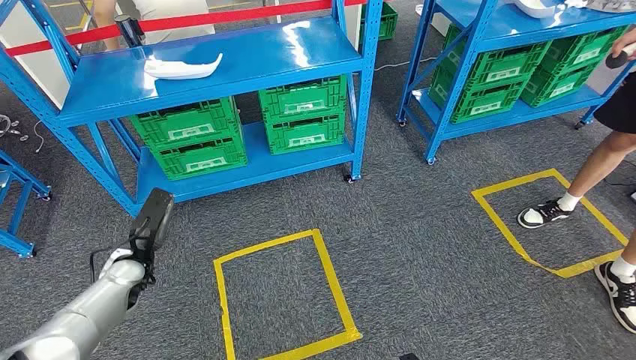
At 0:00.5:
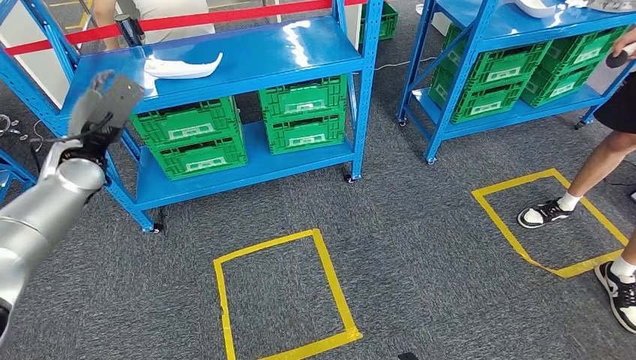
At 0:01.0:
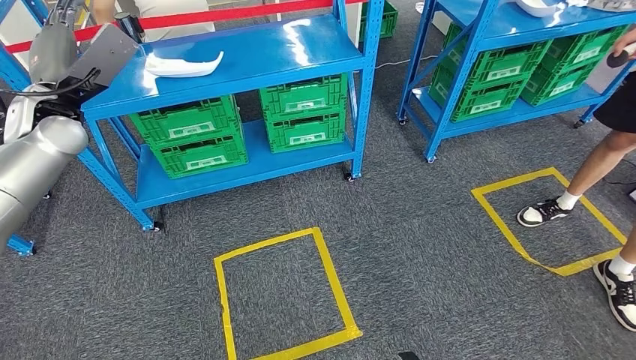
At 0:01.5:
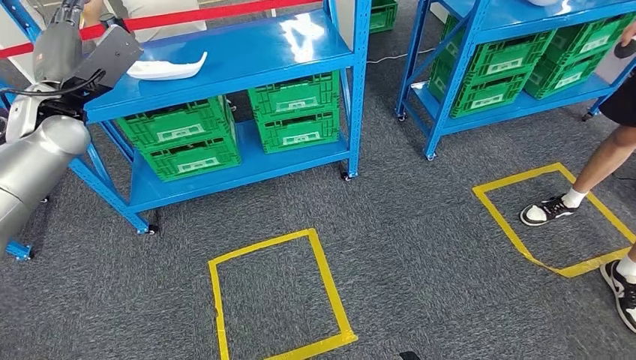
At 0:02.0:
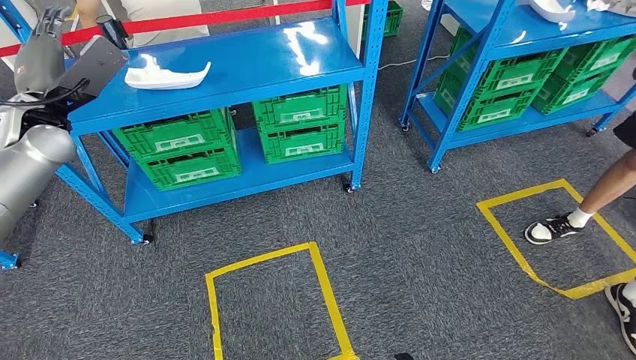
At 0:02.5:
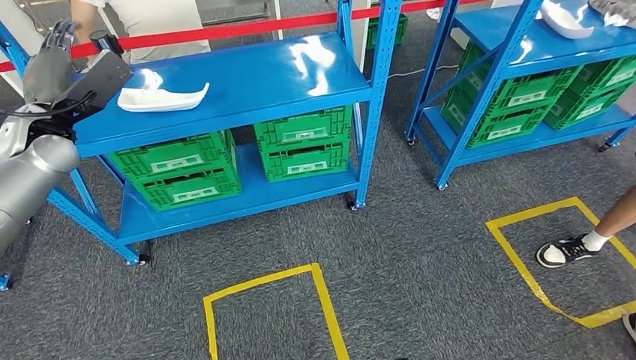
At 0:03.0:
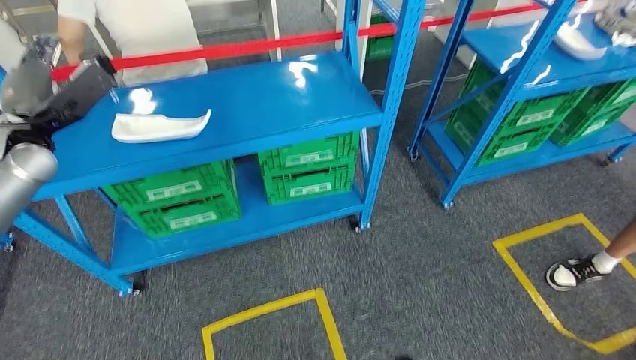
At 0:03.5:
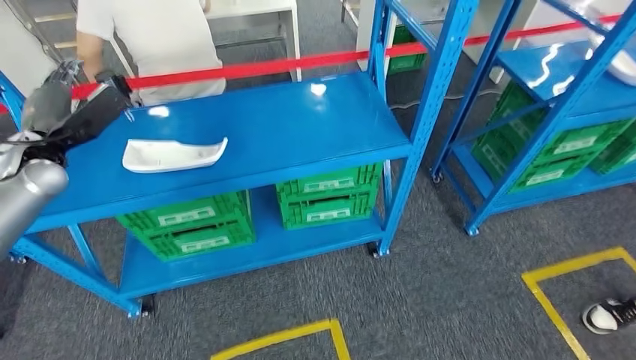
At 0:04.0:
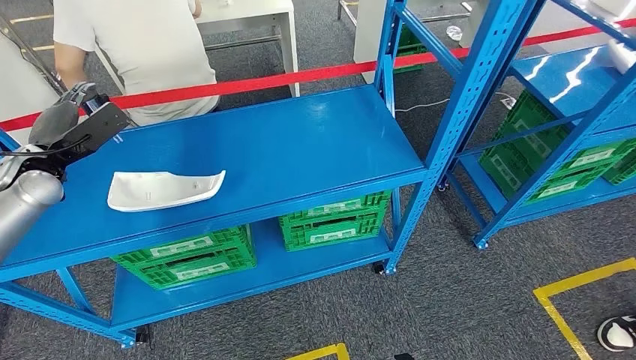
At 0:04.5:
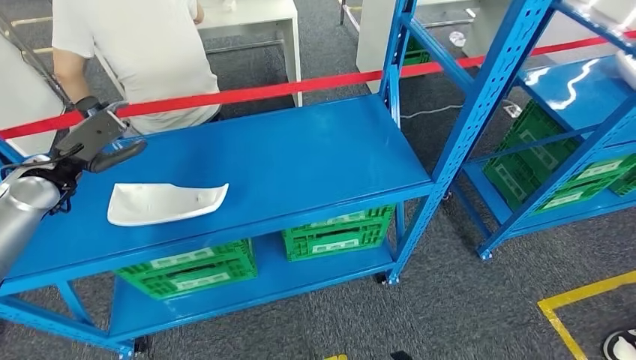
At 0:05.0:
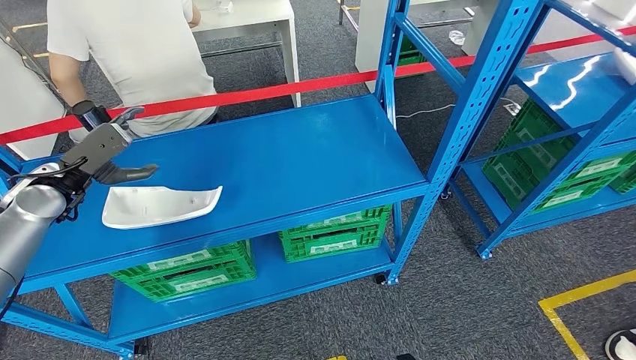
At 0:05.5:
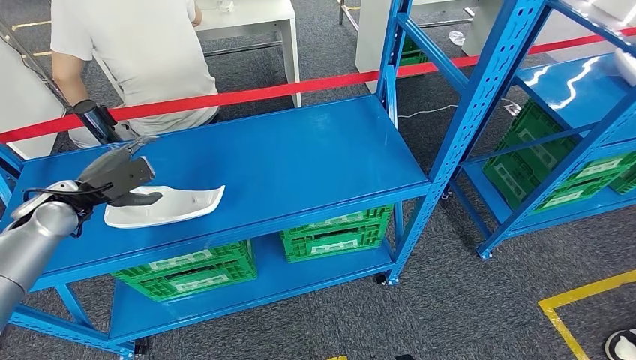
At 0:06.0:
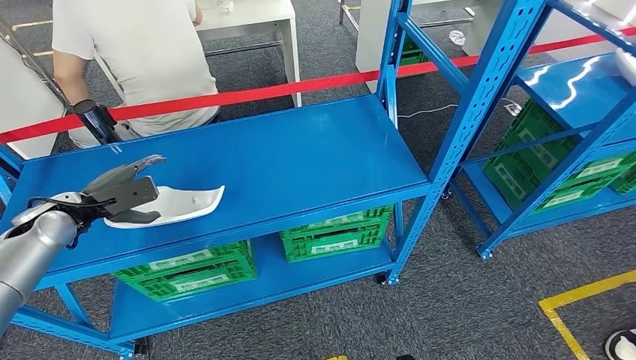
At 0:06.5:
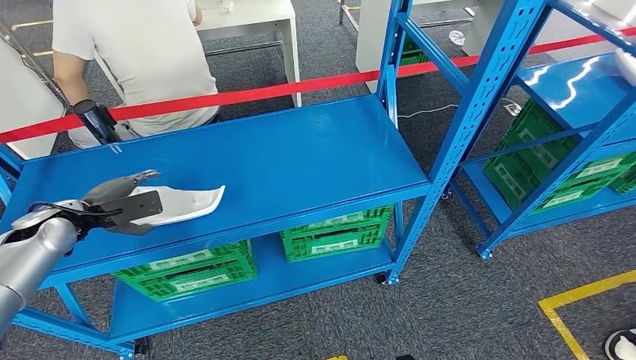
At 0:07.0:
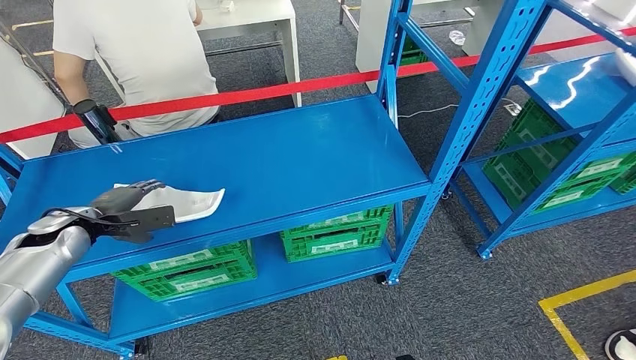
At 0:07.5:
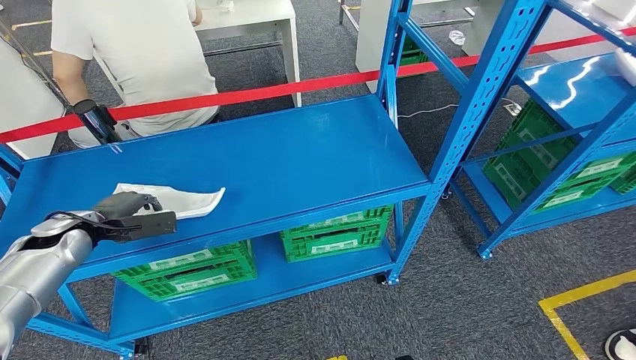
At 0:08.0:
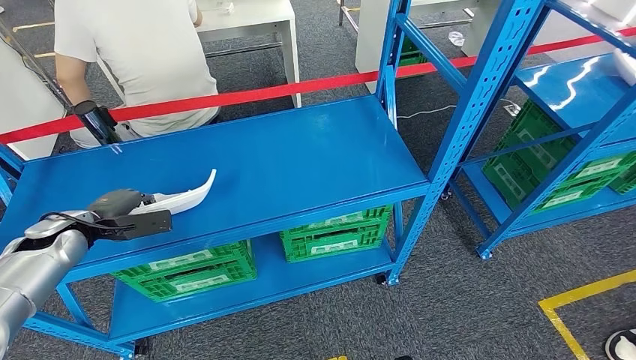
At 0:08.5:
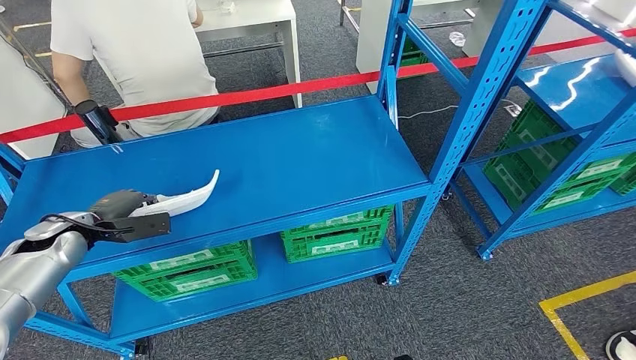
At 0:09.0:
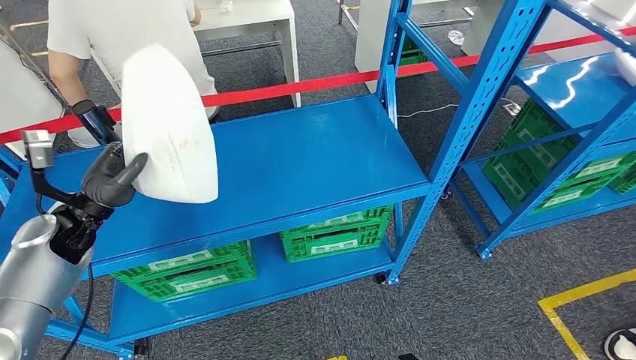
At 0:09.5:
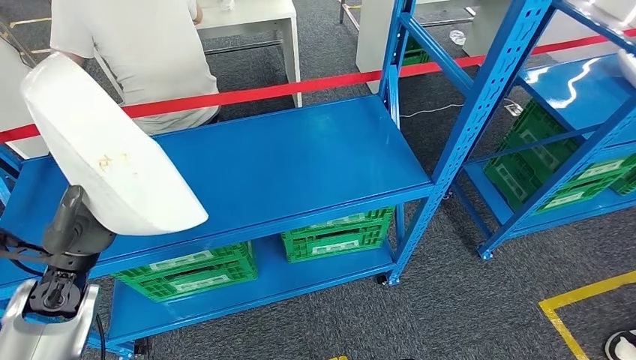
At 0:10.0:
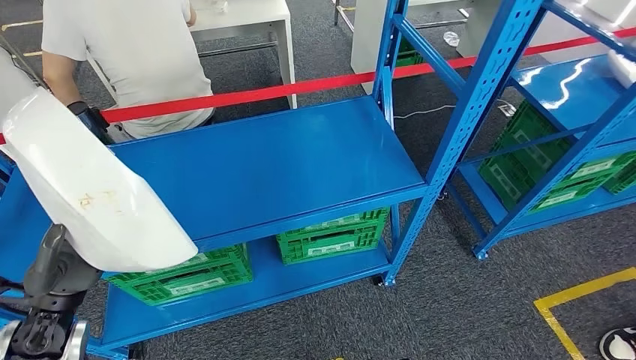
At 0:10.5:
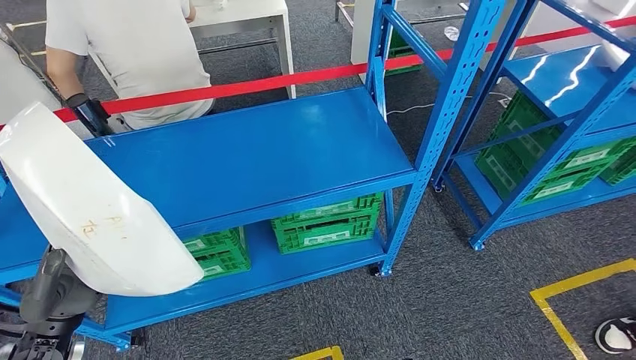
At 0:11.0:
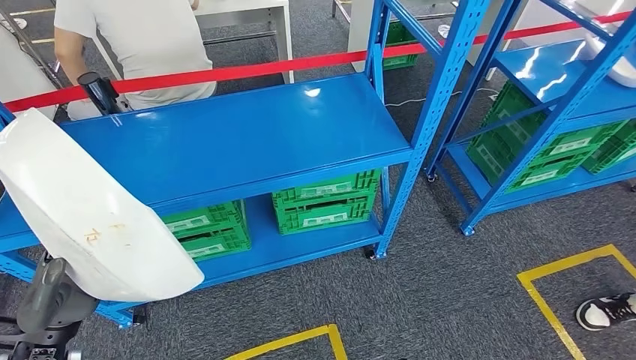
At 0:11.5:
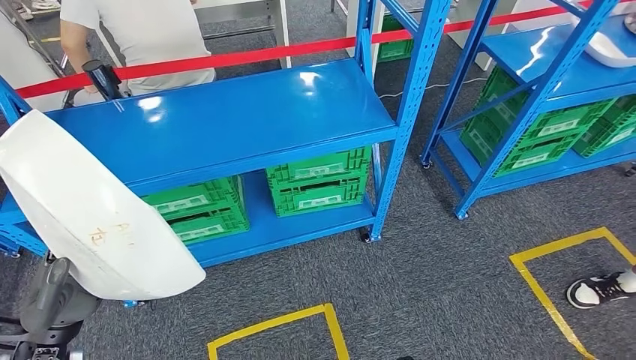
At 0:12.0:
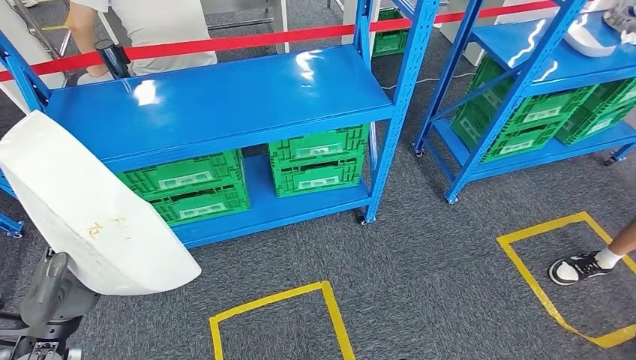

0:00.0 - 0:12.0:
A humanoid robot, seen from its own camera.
Step, 0:00.0 - 0:10.5: Take small components from the rack.

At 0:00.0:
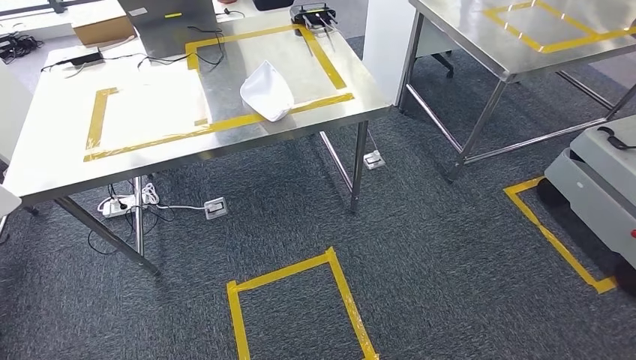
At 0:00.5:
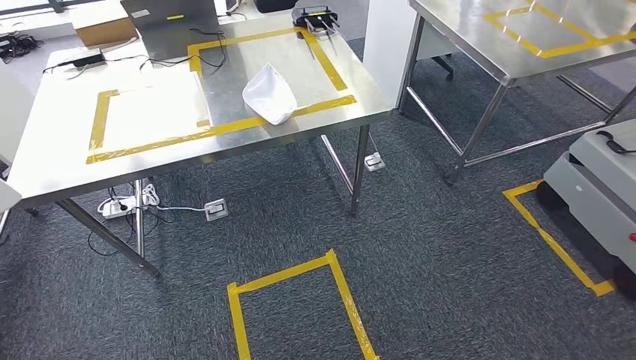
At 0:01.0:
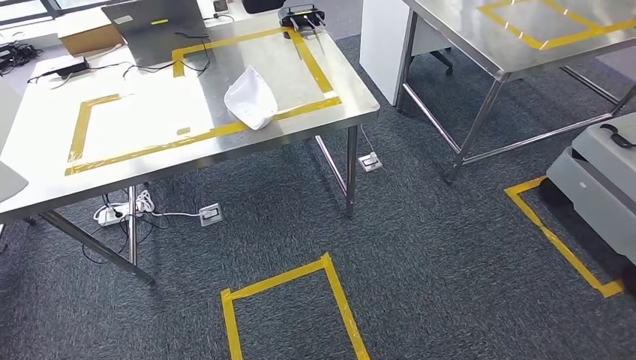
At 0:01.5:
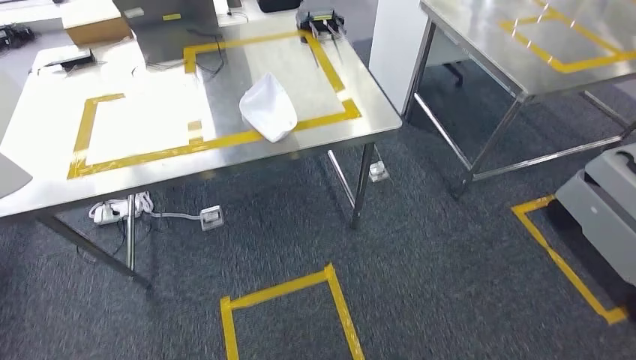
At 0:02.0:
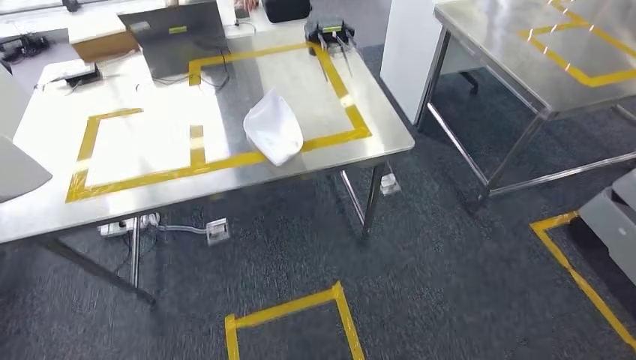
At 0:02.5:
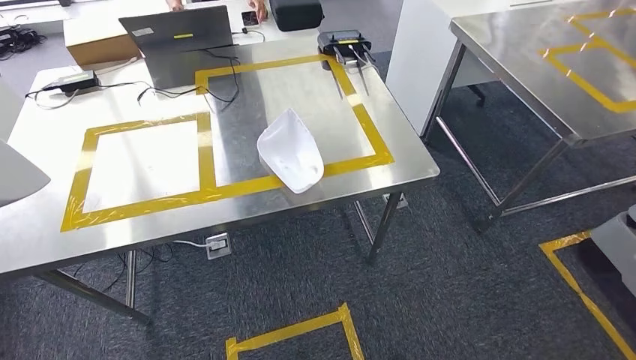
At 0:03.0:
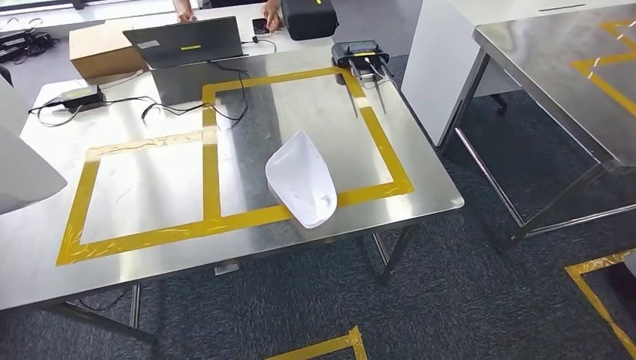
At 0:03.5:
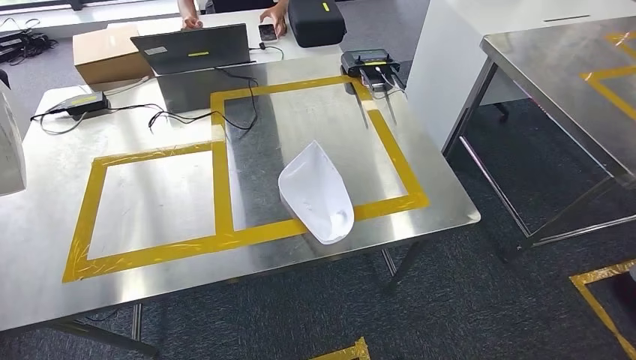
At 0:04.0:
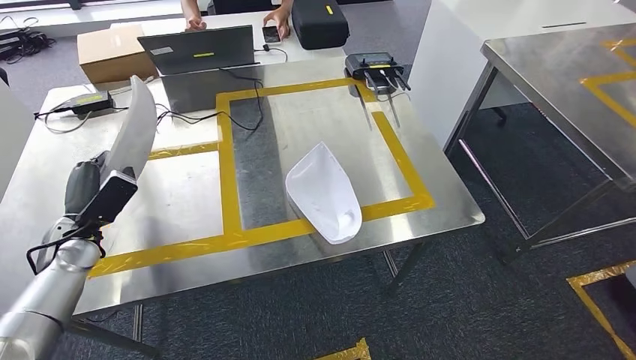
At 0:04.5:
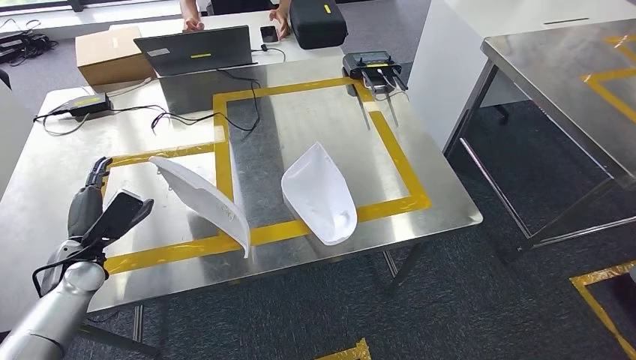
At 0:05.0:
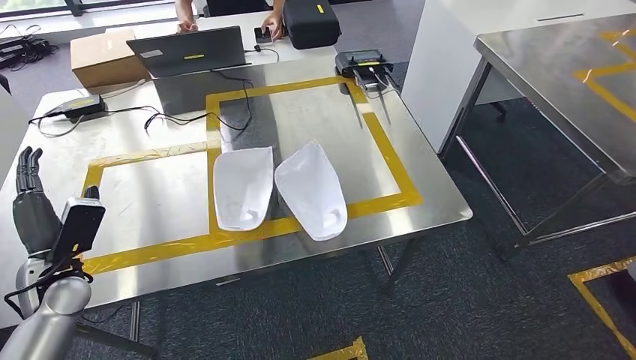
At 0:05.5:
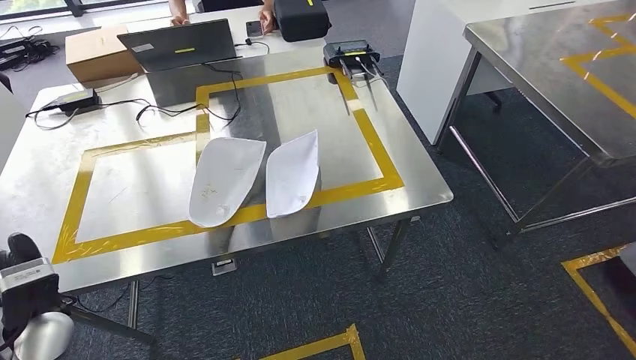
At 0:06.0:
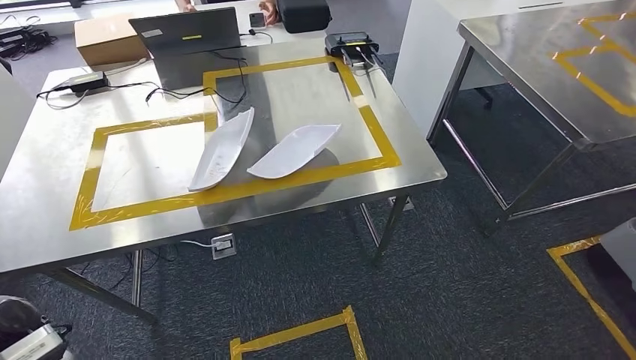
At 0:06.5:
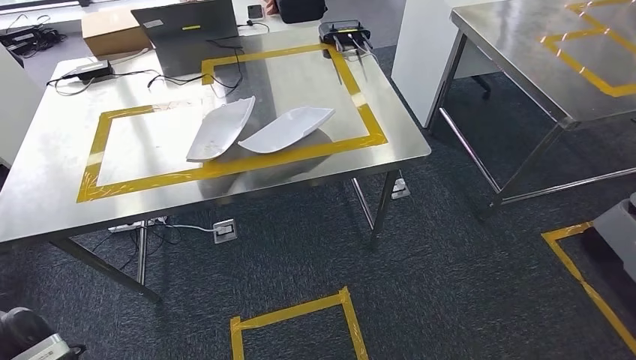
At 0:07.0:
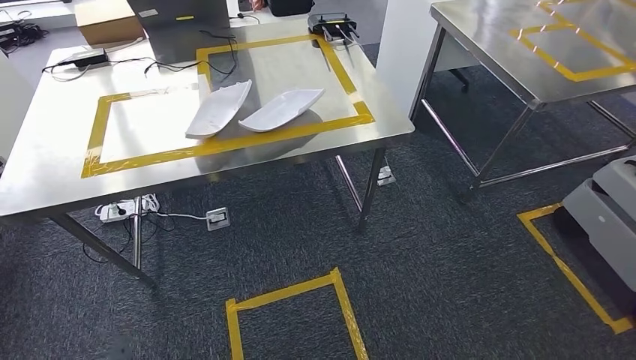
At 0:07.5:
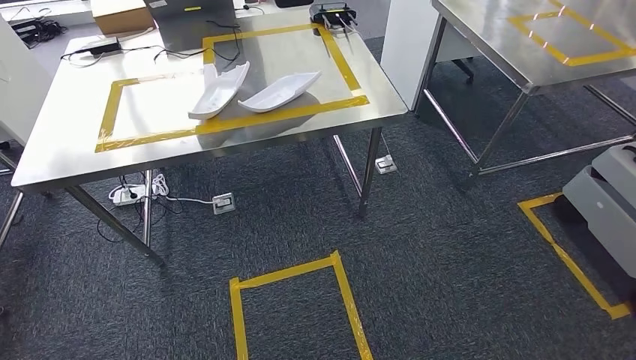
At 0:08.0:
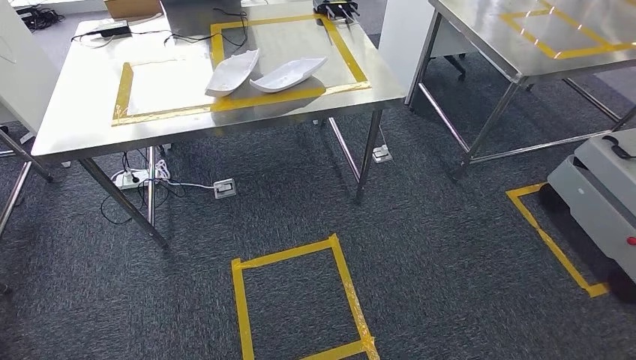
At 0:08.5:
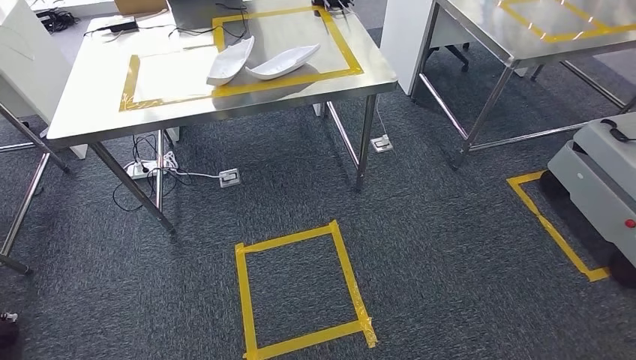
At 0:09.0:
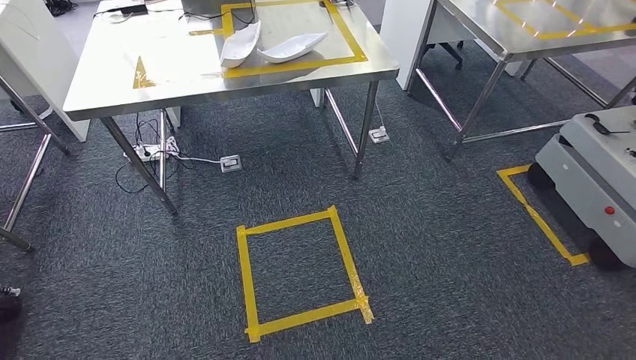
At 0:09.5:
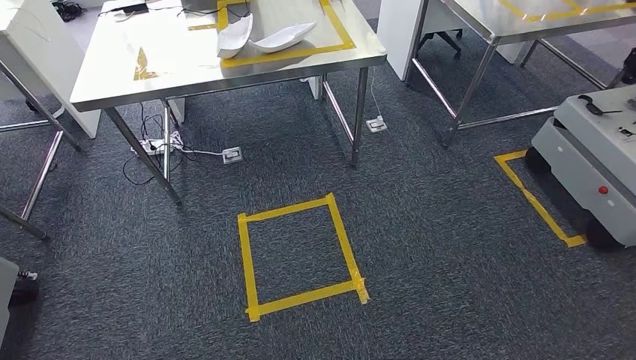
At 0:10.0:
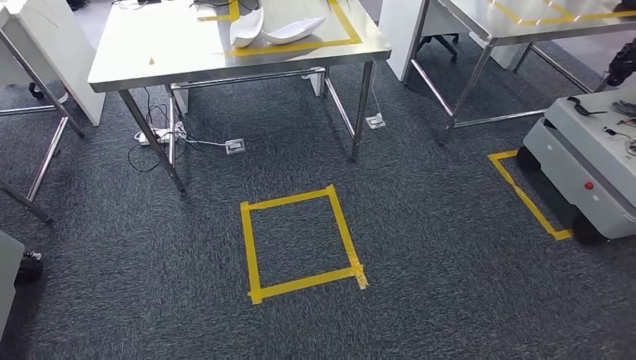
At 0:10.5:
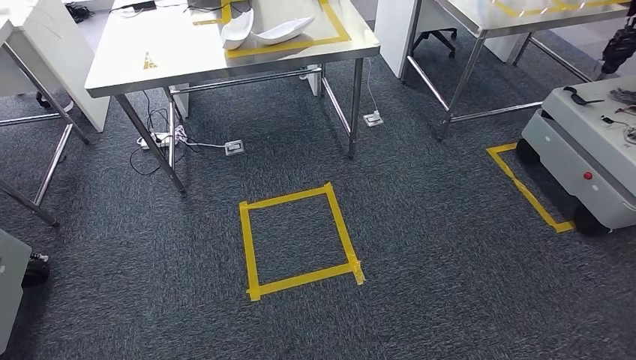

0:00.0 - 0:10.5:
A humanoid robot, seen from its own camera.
Step, 0:01.0 - 0:05.5: Insert the small parts into the corresponding holes on the workbench.
Step, 0:06.0 - 0:10.5: Move to the initial position of the workbench.
